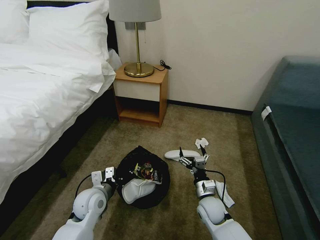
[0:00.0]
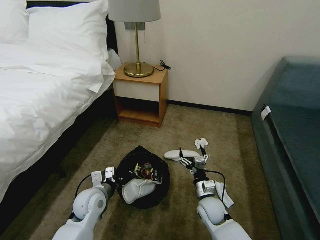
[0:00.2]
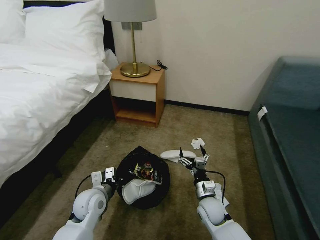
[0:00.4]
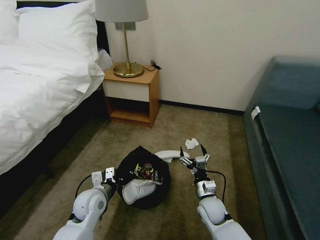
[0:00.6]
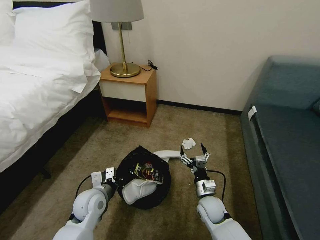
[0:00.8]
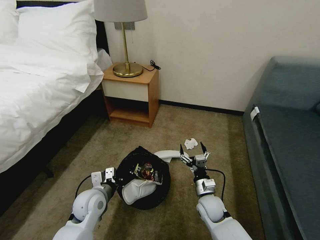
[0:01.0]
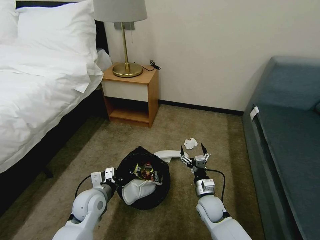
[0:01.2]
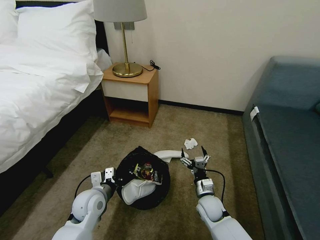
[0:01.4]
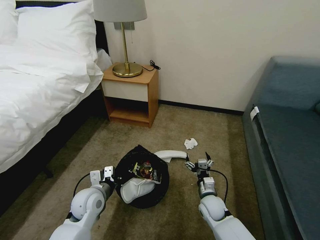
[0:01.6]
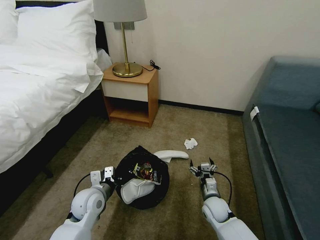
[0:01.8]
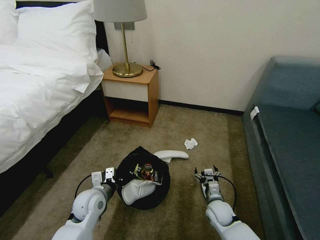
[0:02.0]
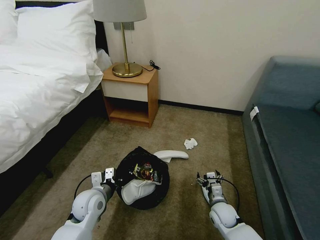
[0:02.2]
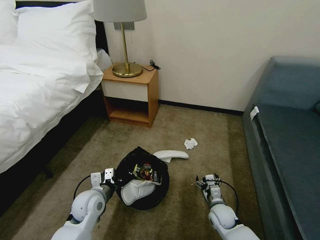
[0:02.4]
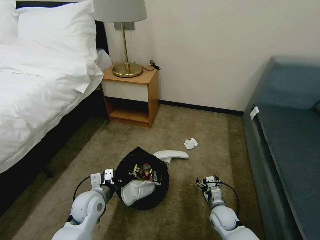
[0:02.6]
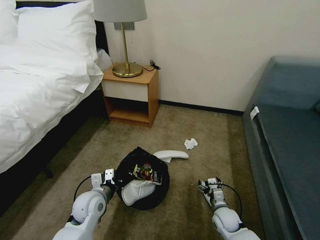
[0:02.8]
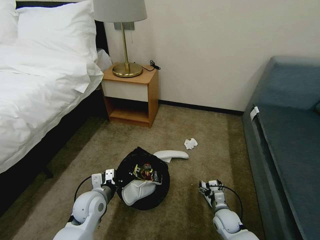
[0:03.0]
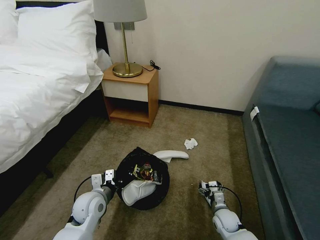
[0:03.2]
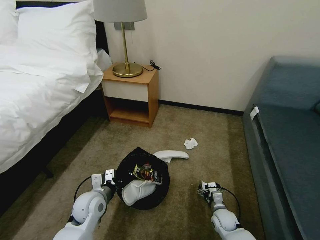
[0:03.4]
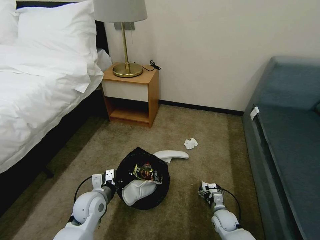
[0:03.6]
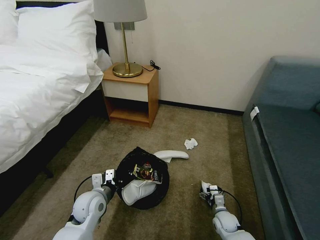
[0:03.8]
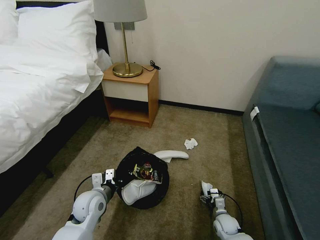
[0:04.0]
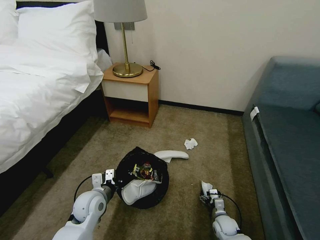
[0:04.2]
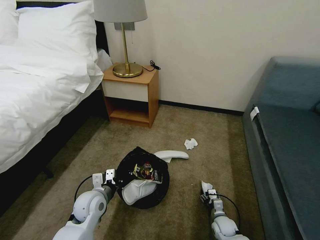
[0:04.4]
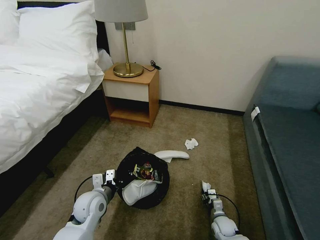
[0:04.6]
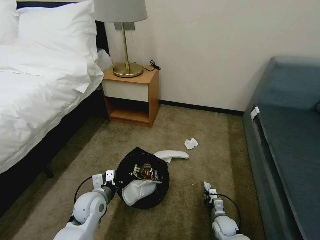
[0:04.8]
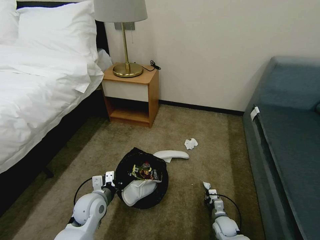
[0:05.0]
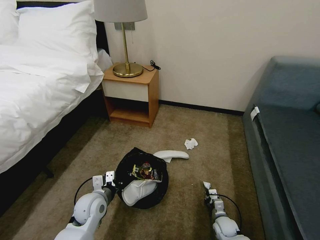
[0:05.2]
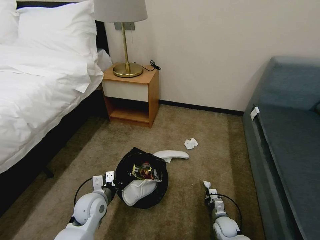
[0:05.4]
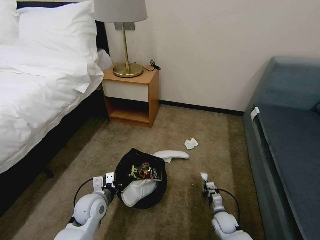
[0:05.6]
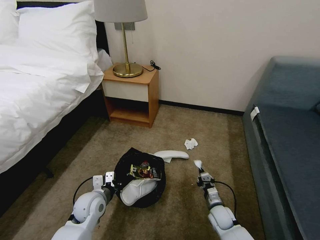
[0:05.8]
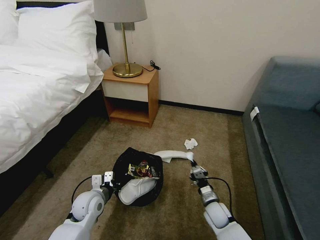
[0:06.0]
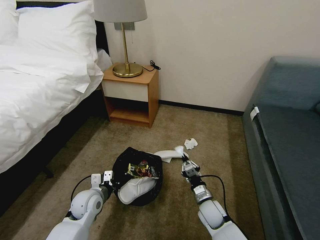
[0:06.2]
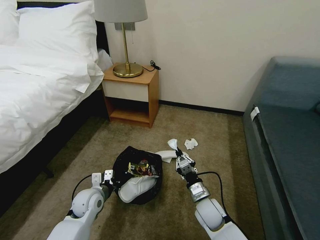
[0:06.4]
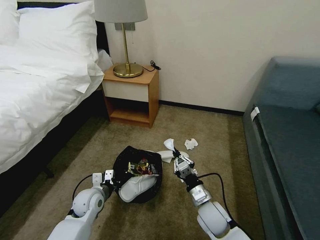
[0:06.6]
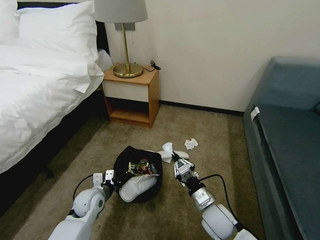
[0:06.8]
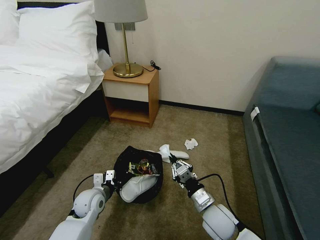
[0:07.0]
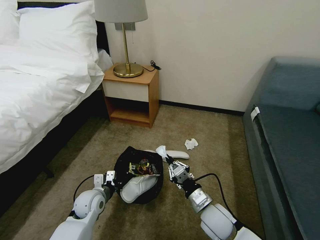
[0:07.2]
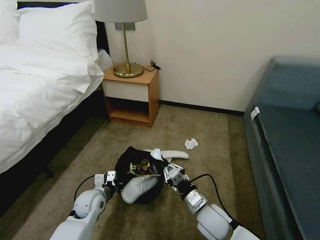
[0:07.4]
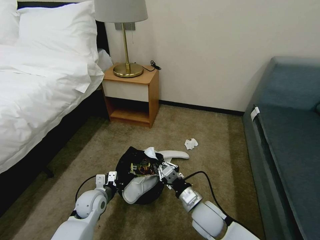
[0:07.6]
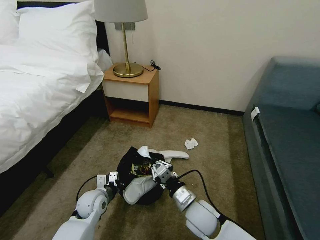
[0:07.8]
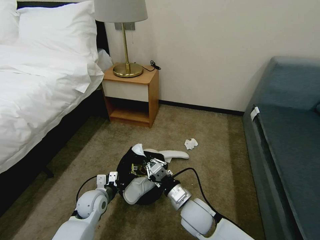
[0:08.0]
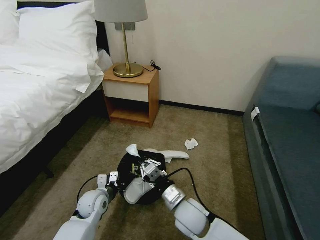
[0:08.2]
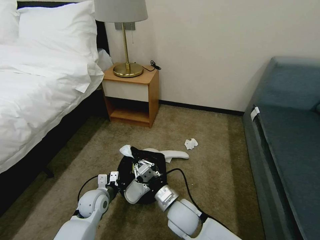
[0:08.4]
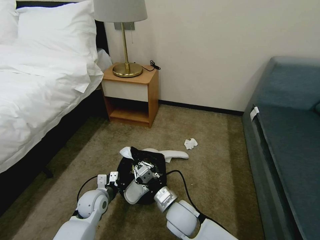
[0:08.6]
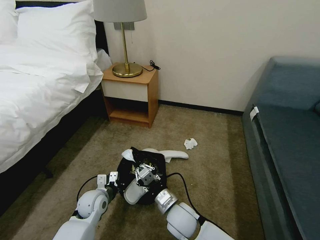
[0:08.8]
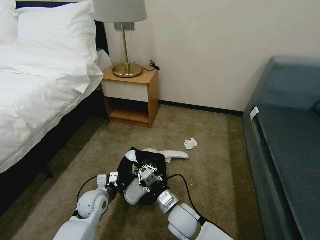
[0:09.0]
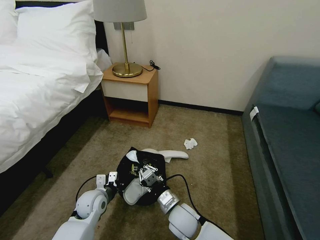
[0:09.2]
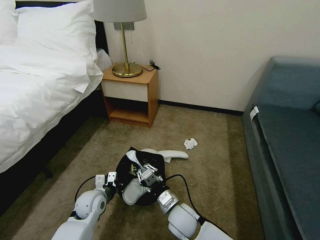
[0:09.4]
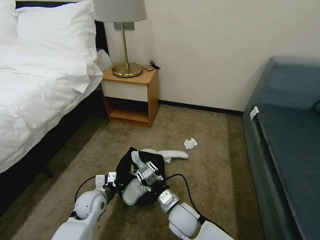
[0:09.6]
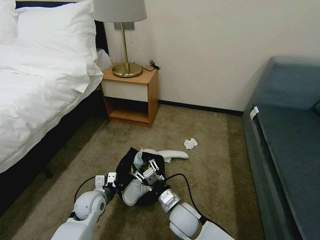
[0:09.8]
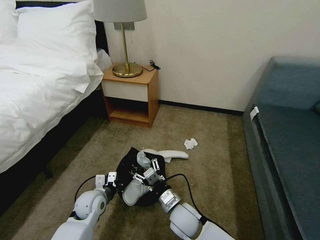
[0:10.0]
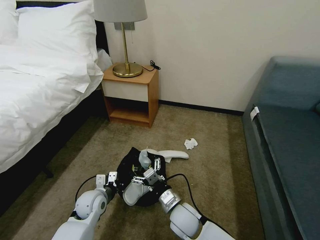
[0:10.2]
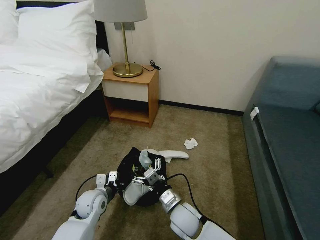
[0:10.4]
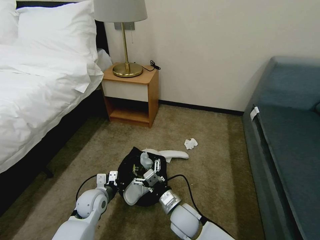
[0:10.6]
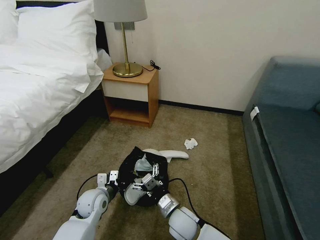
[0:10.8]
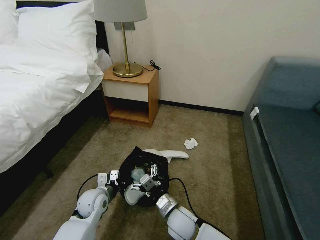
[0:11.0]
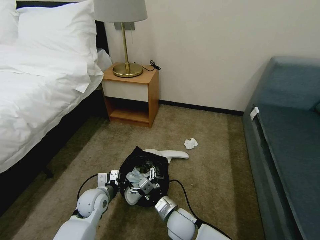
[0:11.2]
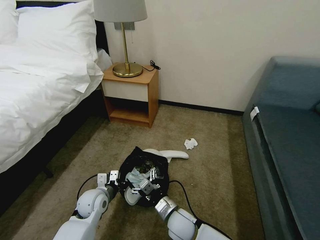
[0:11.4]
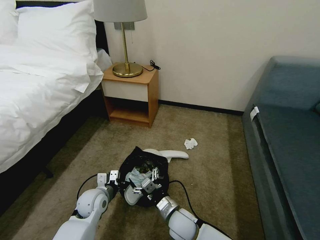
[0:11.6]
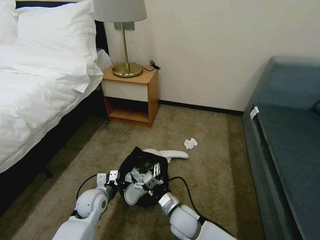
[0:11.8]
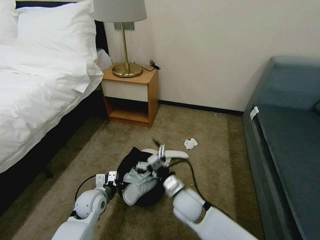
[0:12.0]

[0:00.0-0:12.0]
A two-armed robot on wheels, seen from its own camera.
Task of the whole recording: Pick up the trash bin, then pick up the garbage on the floor and place it into the trash bin.
0:01.6 to 0:03.0: The right gripper shifts some 10 cm to the right and downward.
0:03.0 to 0:04.4: The right gripper is displaced downward by about 5 cm.
0:04.4 to 0:06.0: The right gripper heads upward and to the left, covering approximately 10 cm, and closes its fingers.
0:06.0 to 0:07.6: The right gripper travels upward and to the left by approximately 15 cm.
0:07.6 to 0:09.0: The right gripper travels to the left by some 10 cm.
0:09.0 to 0:10.4: The right gripper opens up.
0:10.4 to 0:12.0: The right gripper shifts by some 5 cm.

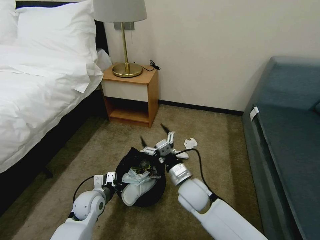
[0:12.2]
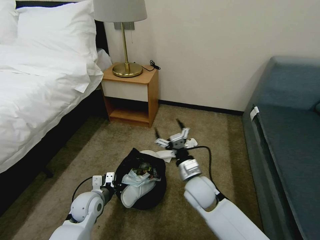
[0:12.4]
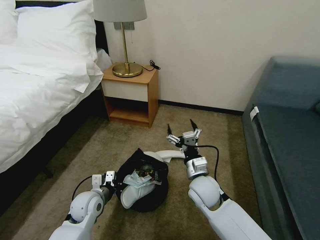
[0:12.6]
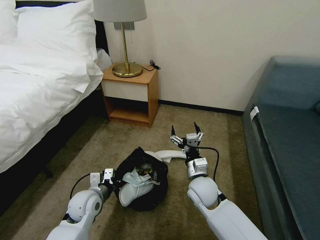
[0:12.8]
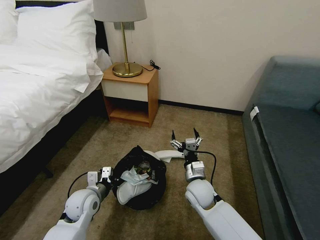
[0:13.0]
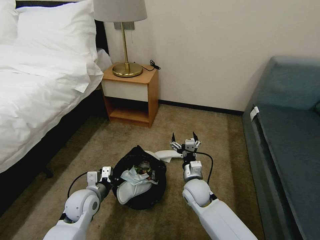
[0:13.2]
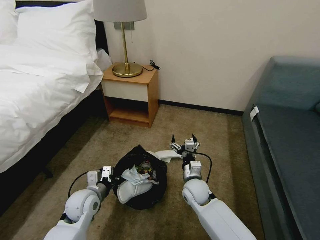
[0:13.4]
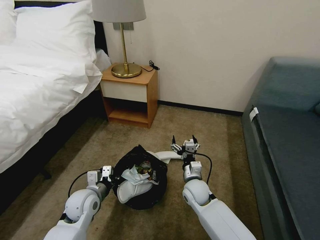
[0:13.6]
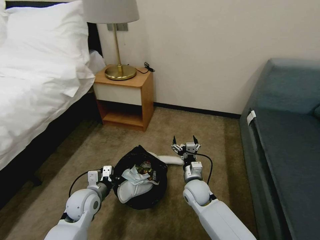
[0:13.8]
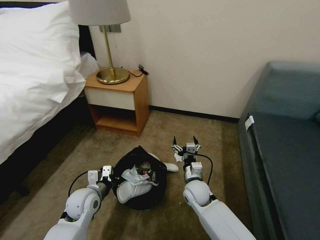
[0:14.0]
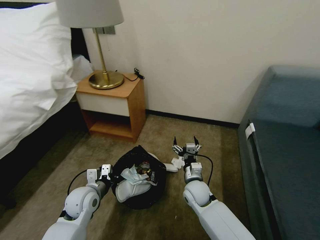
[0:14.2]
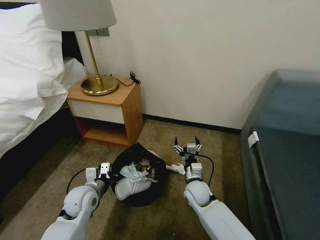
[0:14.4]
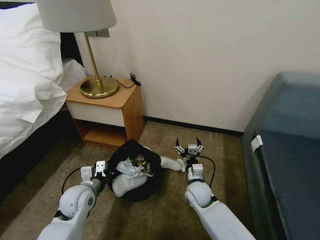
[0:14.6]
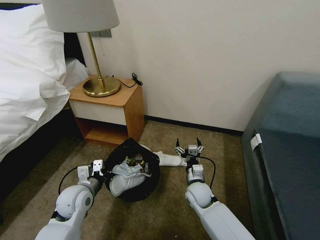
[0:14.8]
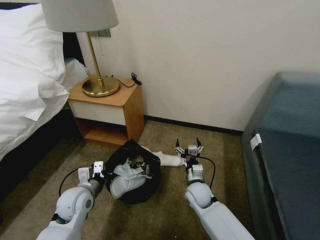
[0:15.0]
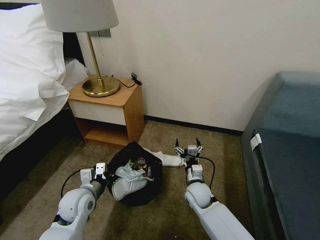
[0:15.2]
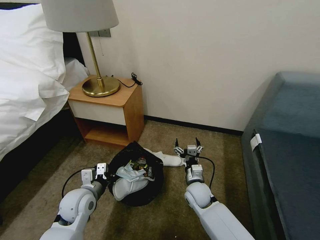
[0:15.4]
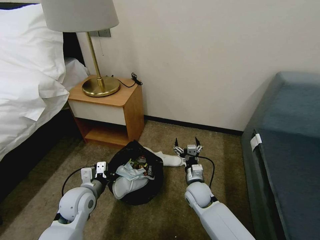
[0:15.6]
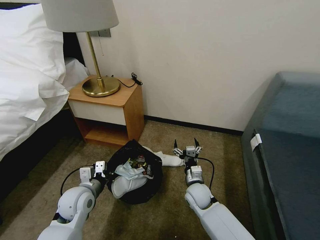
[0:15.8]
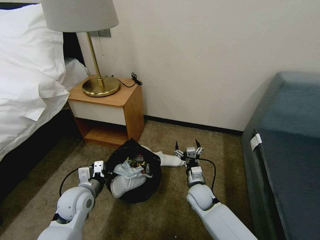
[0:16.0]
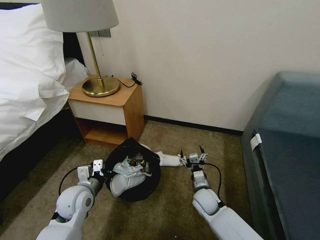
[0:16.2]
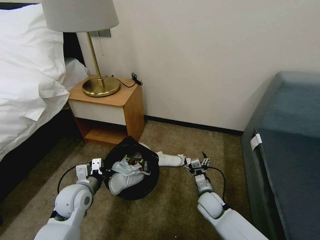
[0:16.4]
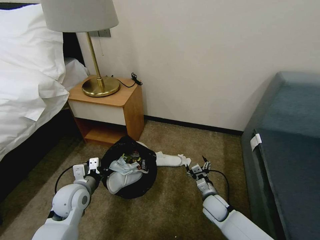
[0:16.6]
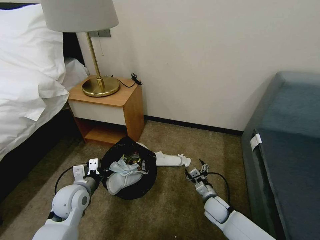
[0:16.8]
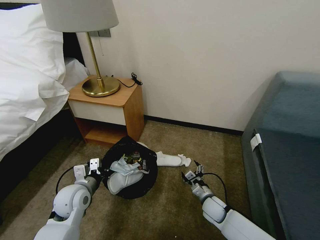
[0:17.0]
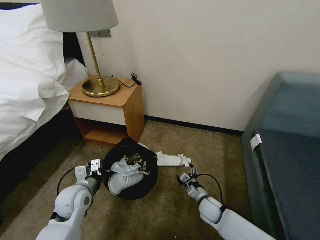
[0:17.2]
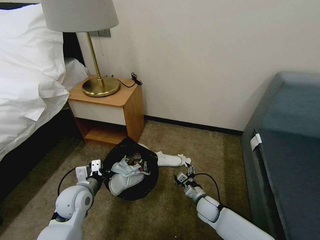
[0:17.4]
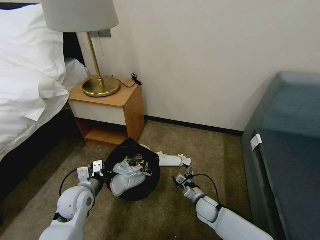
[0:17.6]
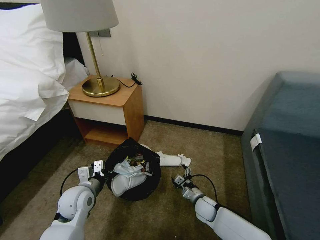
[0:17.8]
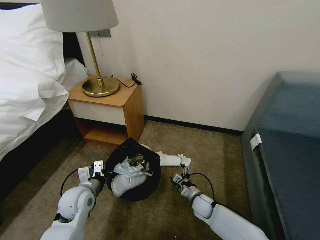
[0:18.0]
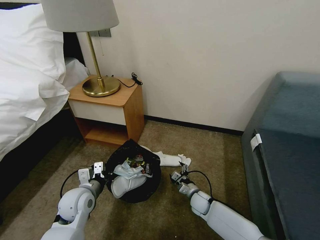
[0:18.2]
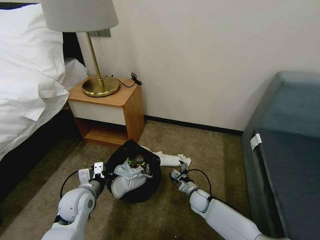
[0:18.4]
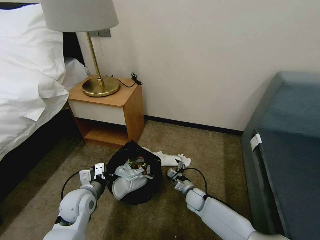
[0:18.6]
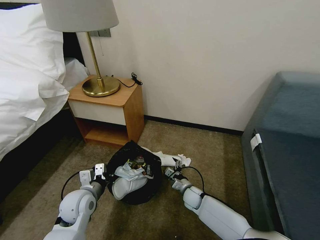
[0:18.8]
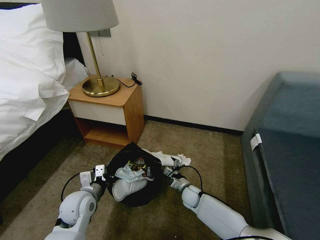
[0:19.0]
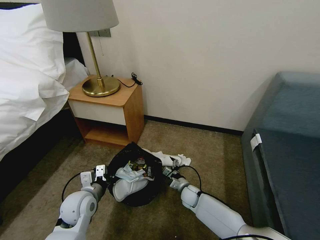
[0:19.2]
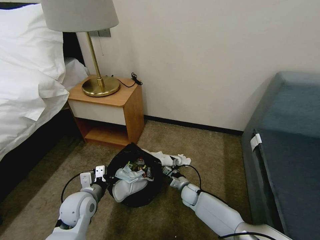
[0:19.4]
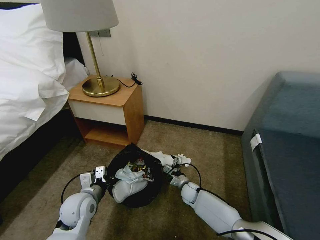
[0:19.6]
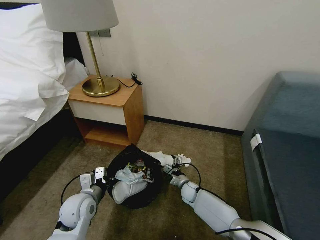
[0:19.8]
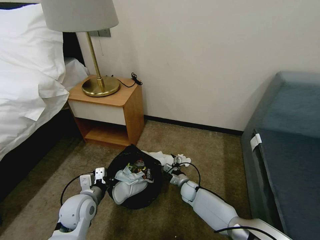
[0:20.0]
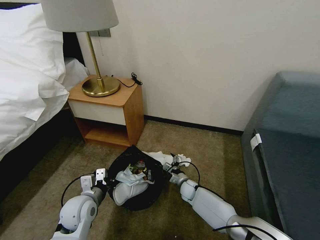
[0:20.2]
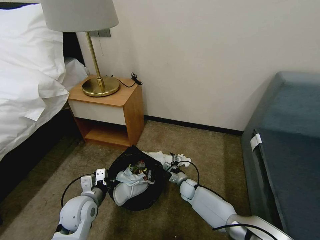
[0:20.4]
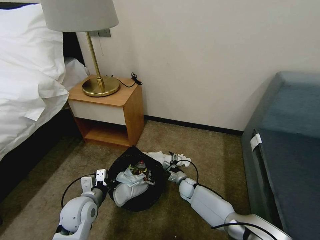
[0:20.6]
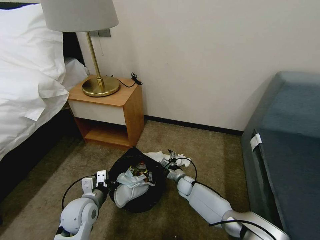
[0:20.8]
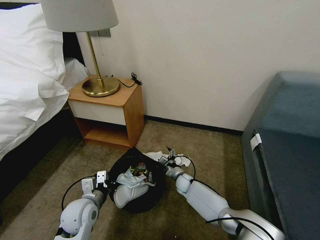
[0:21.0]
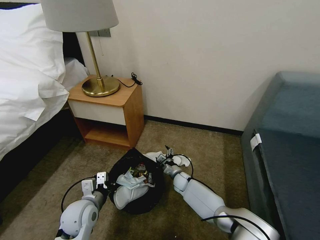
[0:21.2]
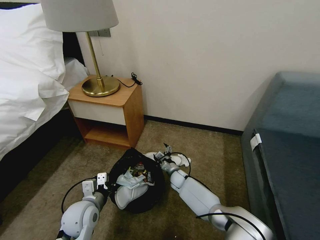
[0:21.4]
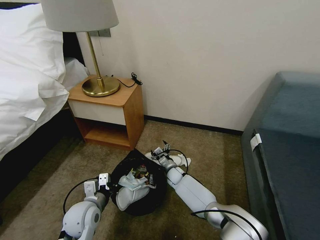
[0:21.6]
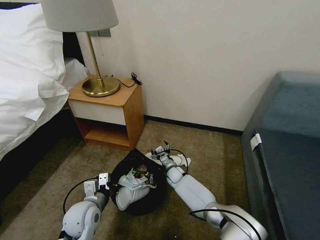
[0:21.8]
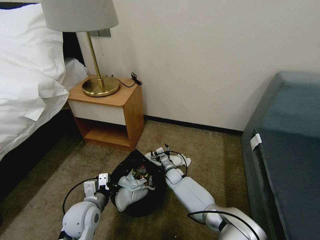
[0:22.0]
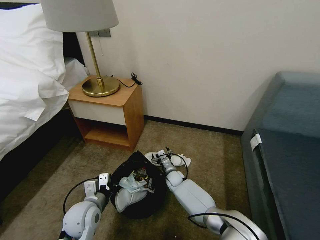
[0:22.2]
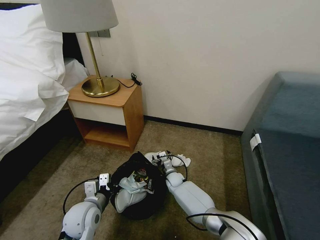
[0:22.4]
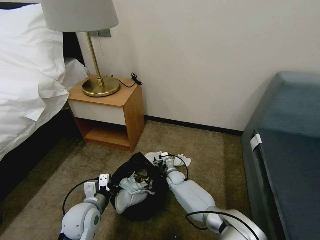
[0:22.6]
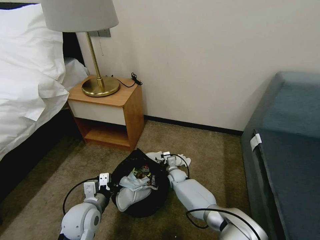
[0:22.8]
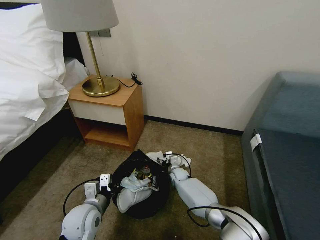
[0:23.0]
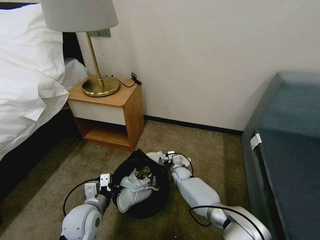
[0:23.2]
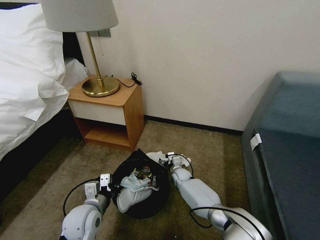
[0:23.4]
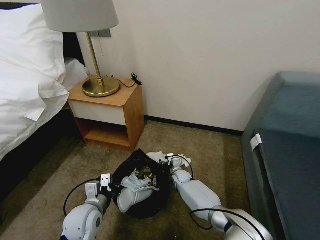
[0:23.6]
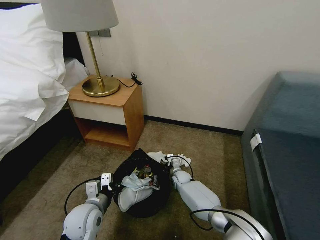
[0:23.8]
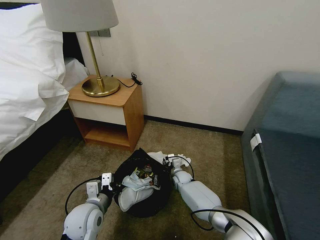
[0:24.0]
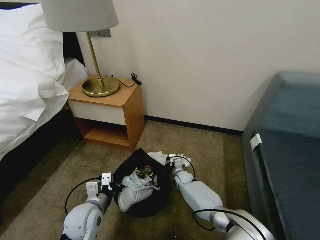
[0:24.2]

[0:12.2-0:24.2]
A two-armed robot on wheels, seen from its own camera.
Task of the whole recording: Pick up the trash bin, then pick up the garbage on the floor and place it into the trash bin.
0:12.2 to 0:13.8: The right gripper moves downward, some 10 cm.
0:15.2 to 0:16.6: The right gripper goes roughly 10 cm to the right and downward.
0:16.6 to 0:18.2: The right gripper is displaced downward by roughly 5 cm.
0:18.2 to 0:19.8: The right gripper moves forward, about 5 cm.
0:19.8 to 0:21.2: The right gripper ends up approximately 5 cm from where it was.
0:22.6 to 0:24.2: The right gripper closes.
